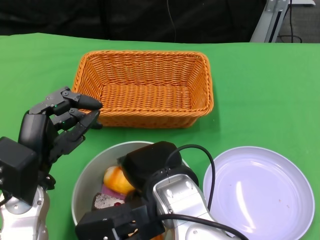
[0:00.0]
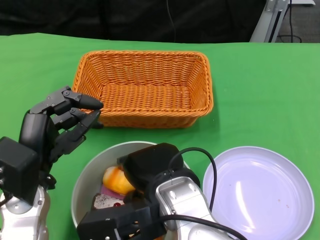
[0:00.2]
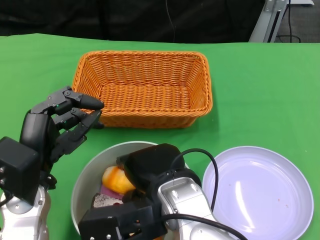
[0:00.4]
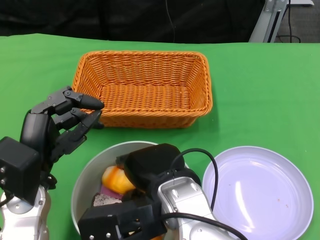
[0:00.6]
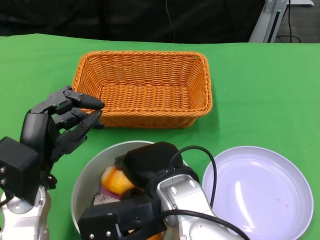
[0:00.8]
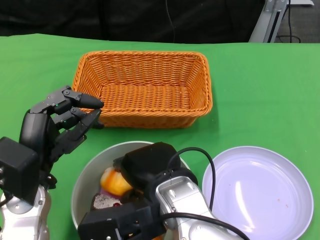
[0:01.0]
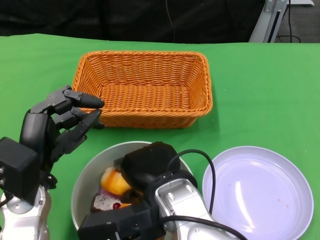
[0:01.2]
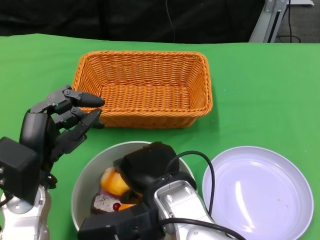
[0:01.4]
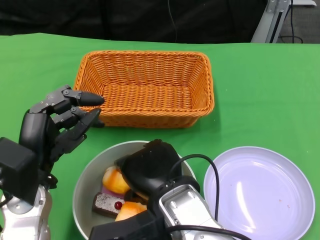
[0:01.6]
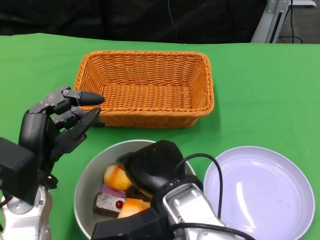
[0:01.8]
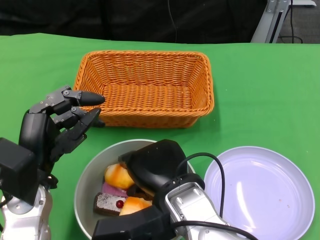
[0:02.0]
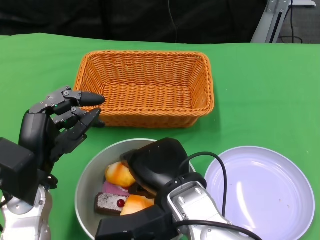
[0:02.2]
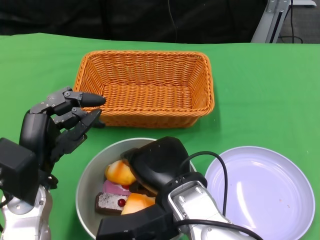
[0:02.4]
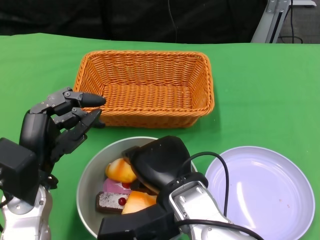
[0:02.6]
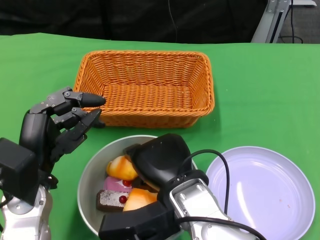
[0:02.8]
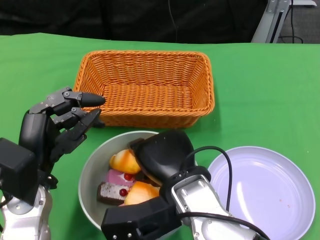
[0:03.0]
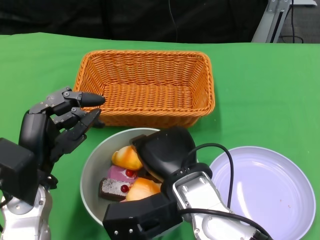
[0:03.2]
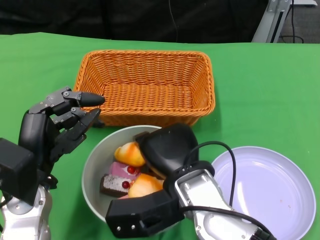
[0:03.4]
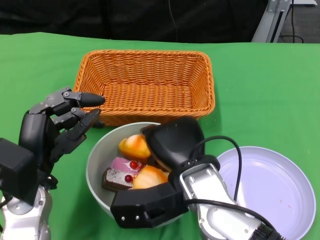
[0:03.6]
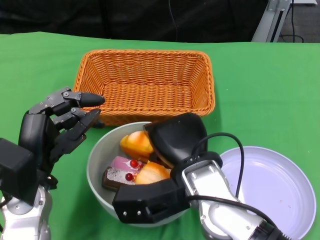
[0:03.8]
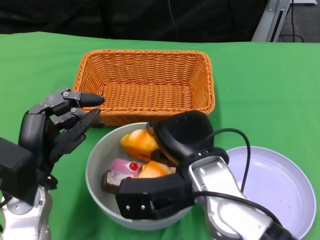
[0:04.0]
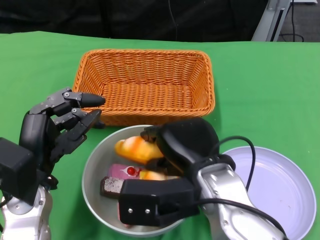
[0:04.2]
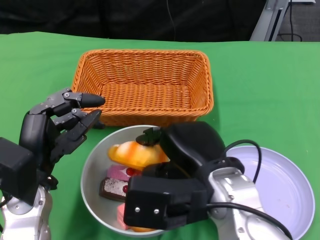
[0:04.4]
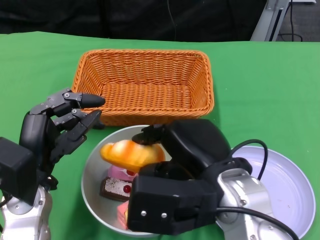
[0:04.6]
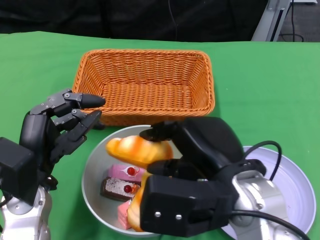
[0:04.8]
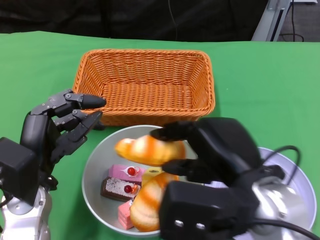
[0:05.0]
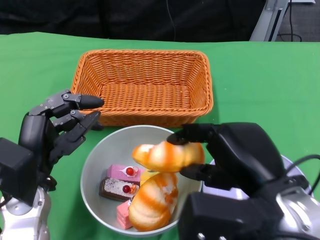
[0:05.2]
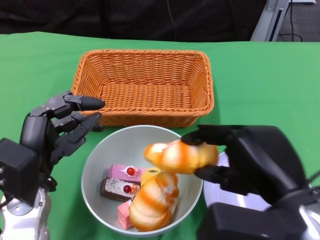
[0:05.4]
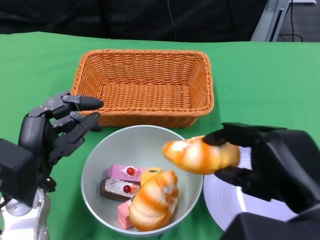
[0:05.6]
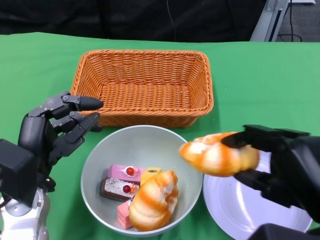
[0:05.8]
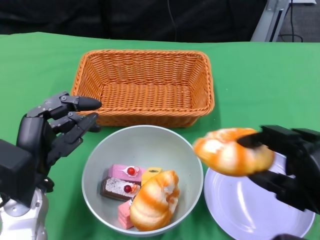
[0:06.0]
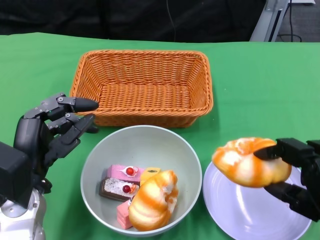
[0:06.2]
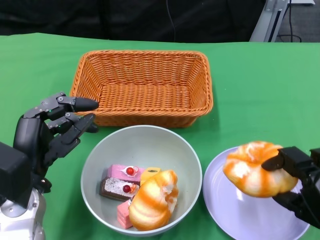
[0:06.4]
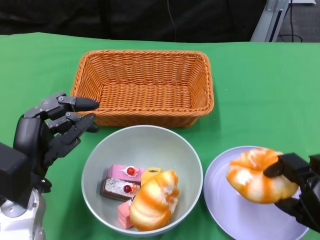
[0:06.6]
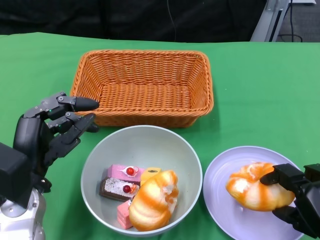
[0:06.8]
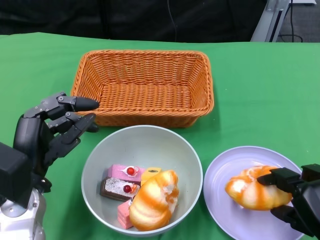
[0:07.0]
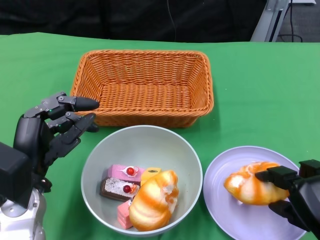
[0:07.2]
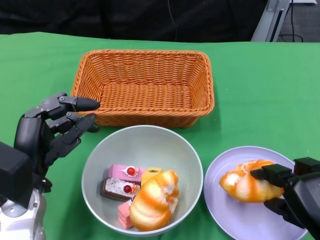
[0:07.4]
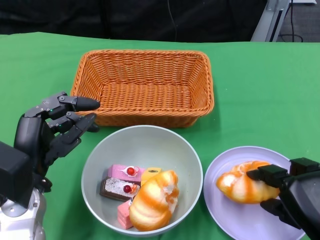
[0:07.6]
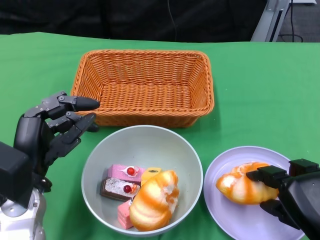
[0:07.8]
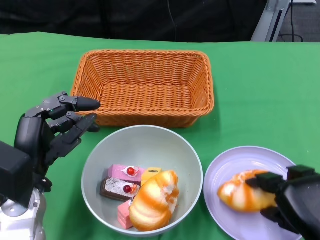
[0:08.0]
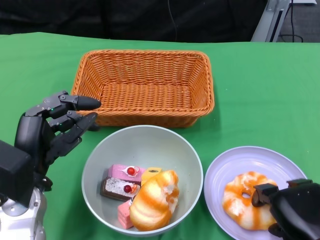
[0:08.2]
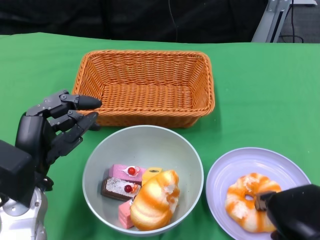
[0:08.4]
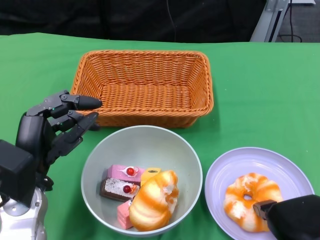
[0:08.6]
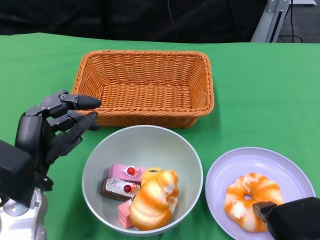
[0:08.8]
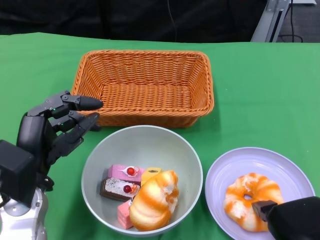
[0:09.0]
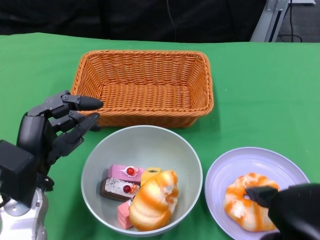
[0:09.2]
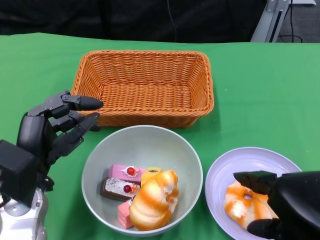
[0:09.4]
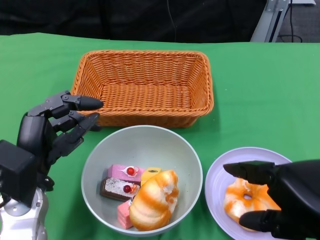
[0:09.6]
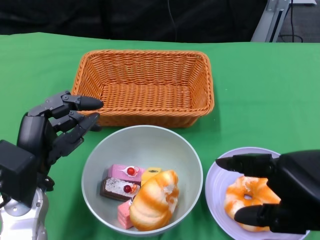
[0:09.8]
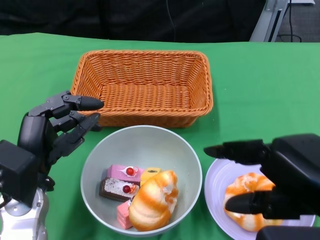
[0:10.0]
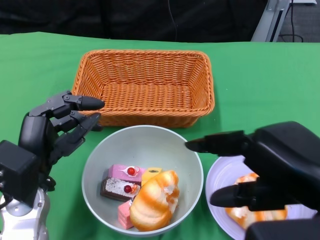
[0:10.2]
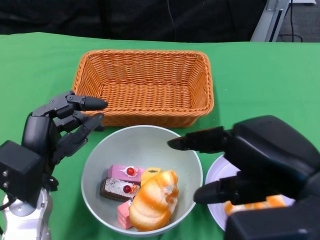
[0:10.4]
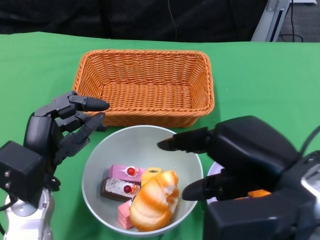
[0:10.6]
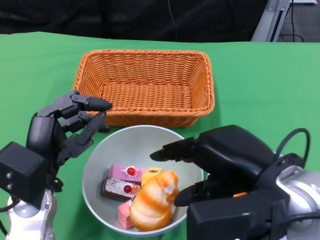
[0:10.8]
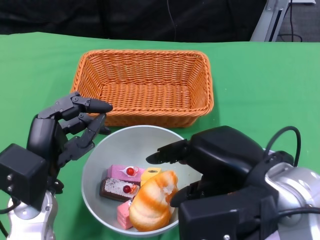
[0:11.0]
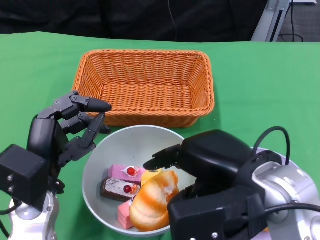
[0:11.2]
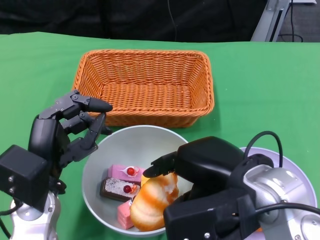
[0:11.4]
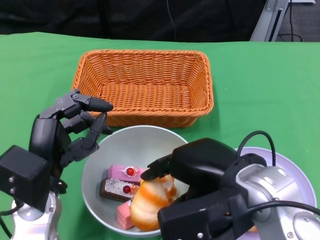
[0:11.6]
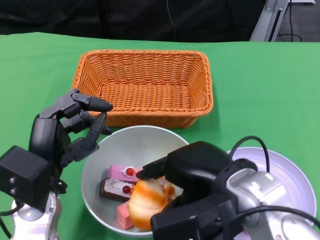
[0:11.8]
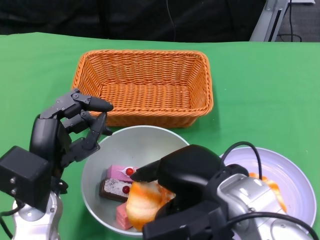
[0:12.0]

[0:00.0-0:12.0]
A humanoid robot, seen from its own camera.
0:00.0 to 0:03.0: The hands make only small movements.
0:03.0 to 0:04.4: The right hand shifts by roughly 5 cm.
0:04.4 to 0:06.0: The right hand heads to the right and backward, covering approximately 15 cm.
0:06.0 to 0:07.6: The right hand moves downward, about 10 cm.
0:07.6 to 0:09.0: The right hand moves upward, some 5 cm.
0:09.0 to 0:10.4: The right hand travels upward by some 10 cm.
0:10.4 to 0:12.0: The right hand is displaced to the left and downward by roughly 10 cm.

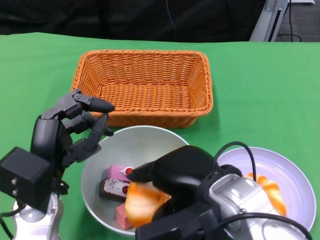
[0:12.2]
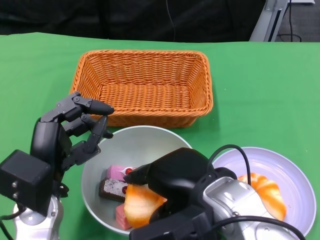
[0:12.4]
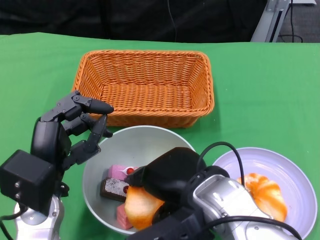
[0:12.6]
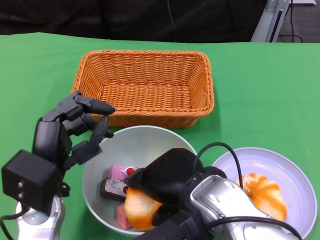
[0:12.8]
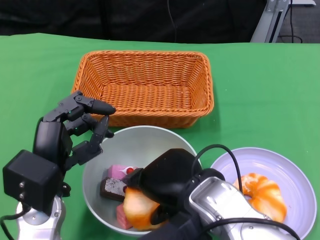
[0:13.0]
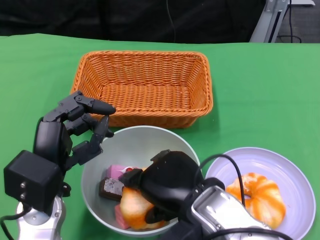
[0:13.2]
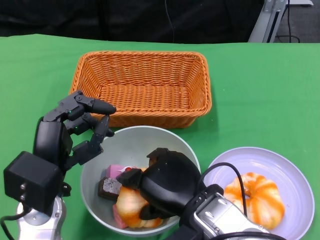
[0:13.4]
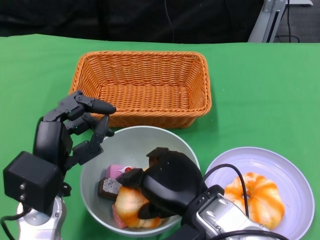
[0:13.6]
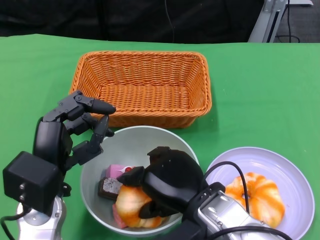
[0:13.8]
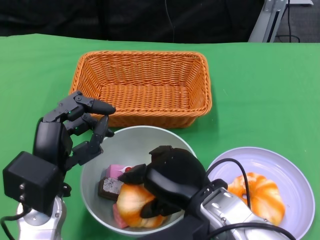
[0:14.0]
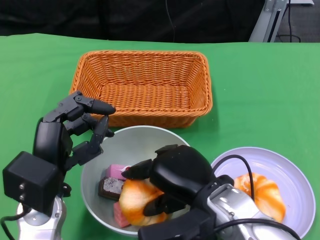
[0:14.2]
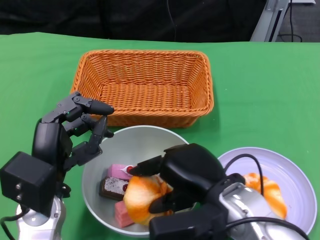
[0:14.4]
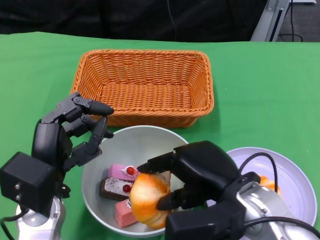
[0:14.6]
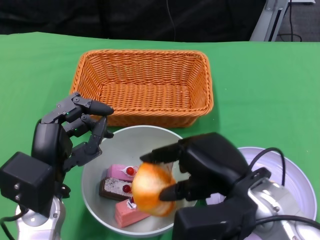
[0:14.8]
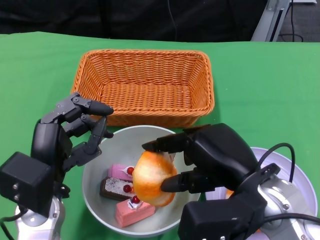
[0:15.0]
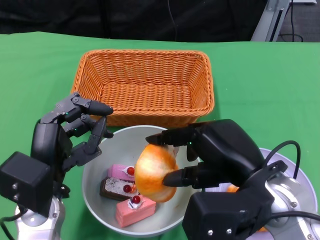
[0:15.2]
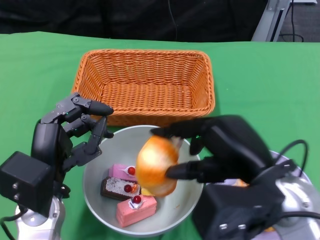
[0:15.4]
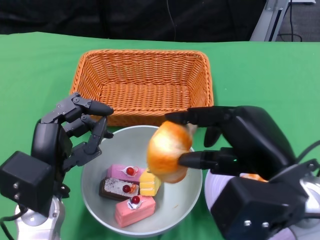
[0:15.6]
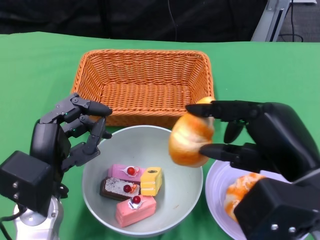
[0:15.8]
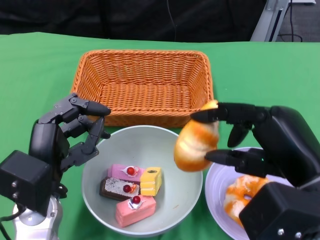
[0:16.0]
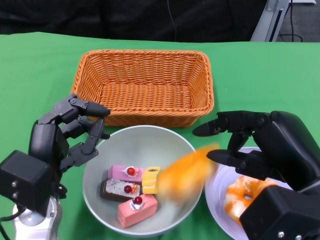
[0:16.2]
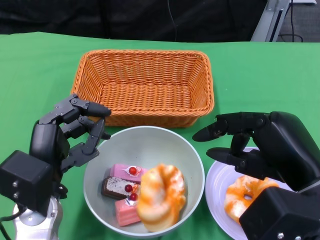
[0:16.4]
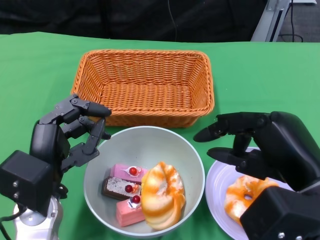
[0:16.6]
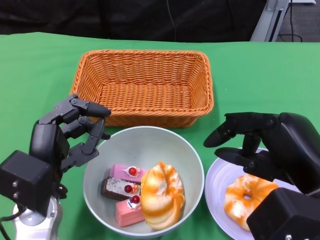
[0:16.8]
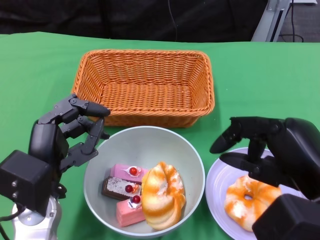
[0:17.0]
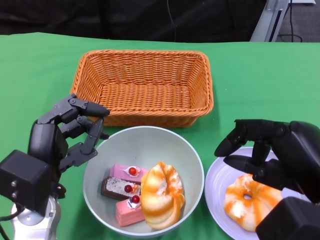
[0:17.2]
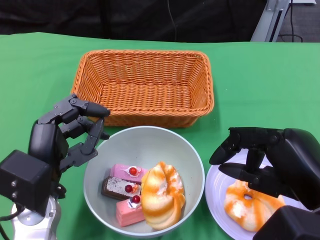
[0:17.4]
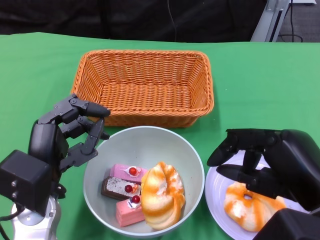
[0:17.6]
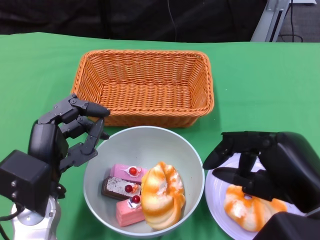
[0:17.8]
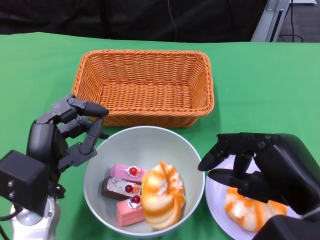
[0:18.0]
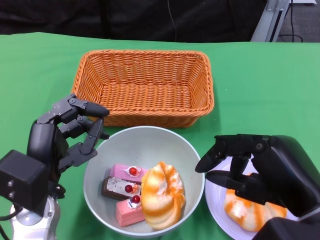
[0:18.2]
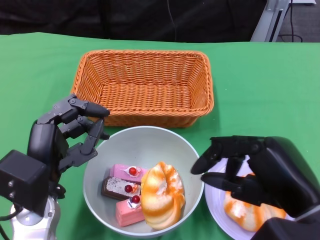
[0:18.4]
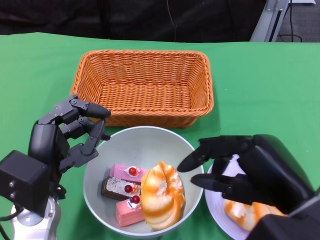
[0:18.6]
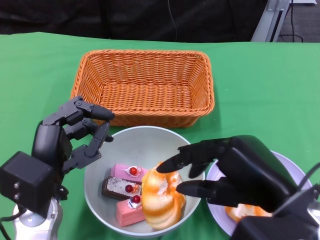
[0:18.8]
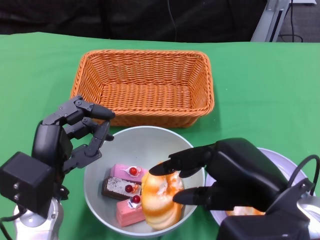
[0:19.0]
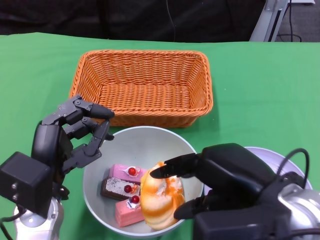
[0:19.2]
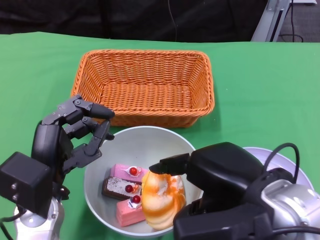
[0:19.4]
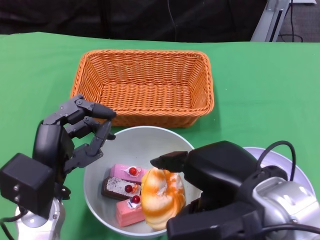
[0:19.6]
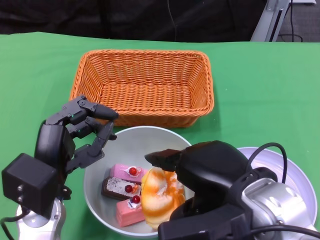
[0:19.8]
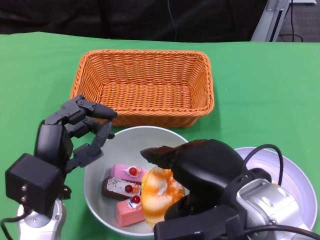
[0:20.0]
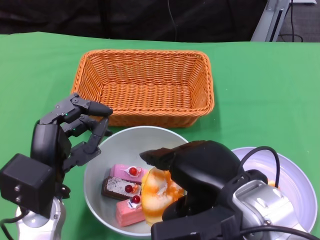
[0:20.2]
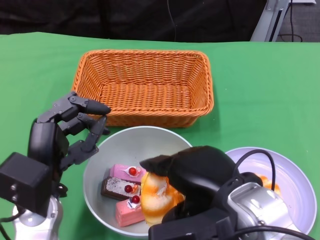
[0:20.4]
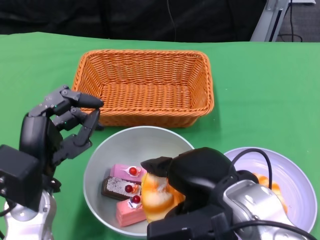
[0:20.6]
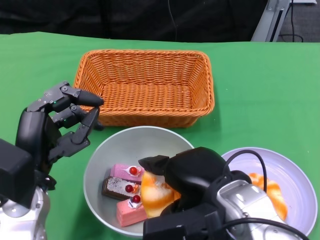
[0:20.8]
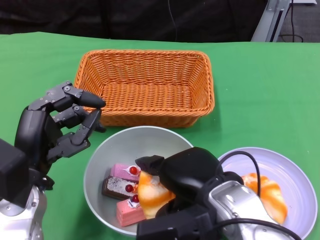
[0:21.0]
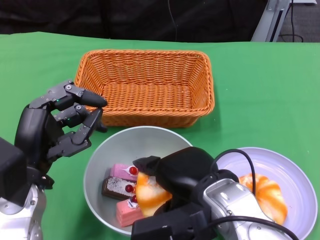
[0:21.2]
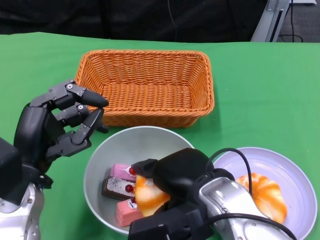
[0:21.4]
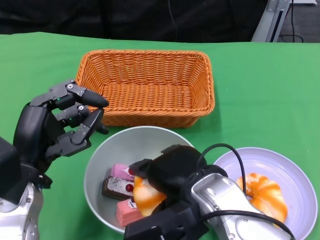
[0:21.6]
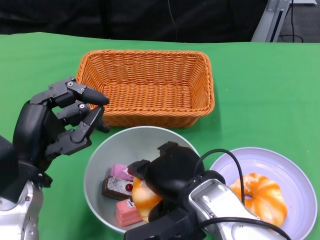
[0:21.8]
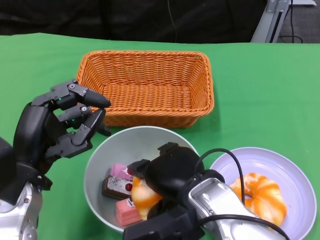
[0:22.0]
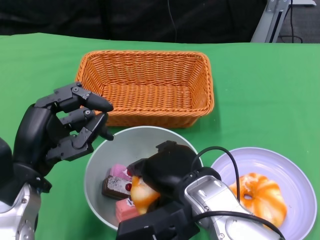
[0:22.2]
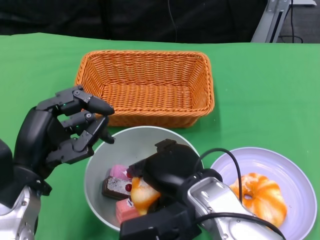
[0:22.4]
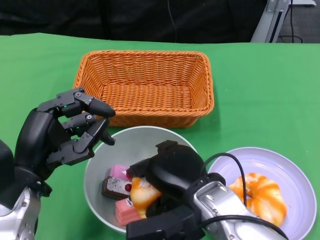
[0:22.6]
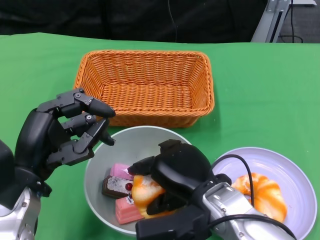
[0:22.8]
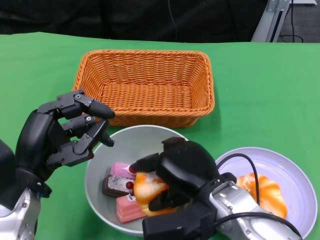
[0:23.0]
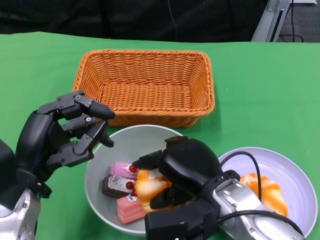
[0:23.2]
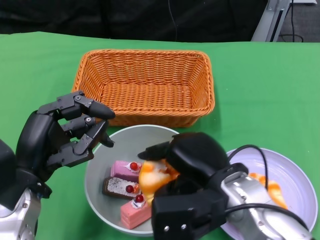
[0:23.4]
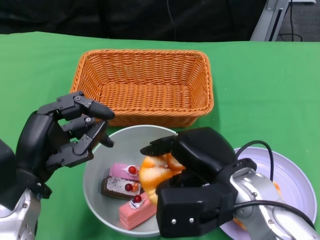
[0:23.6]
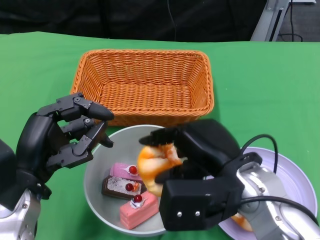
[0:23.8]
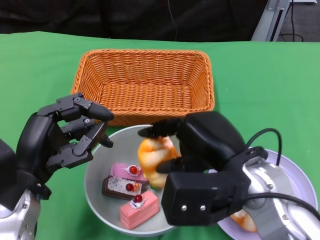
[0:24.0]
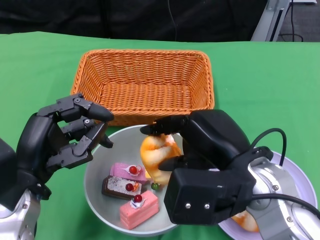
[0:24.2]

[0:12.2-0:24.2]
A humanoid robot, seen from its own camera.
0:12.2 to 0:13.8: The right hand goes some 5 cm downward.
0:13.8 to 0:15.2: The right hand is displaced to the right and upward by some 10 cm.
0:15.2 to 0:16.6: The right hand travels to the right by some 5 cm.
0:16.6 to 0:18.2: The hands make only small movements.
0:18.2 to 0:19.8: The right hand shifts approximately 5 cm to the left.
0:19.8 to 0:21.2: The right hand moves some 5 cm.
0:21.2 to 0:22.6: The hands make only small movements.
0:22.6 to 0:24.2: The right hand shifts roughly 10 cm upward and to the right.
